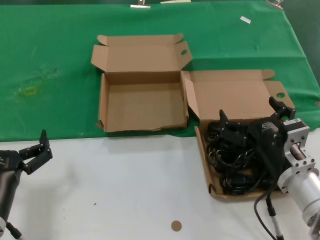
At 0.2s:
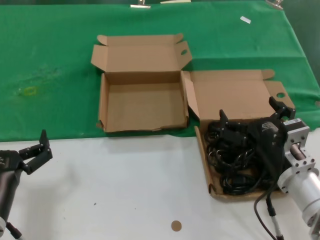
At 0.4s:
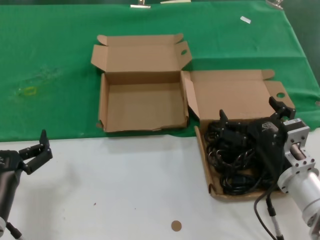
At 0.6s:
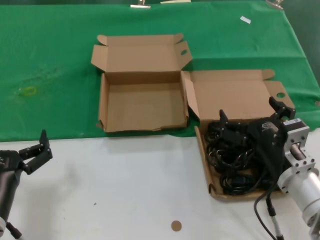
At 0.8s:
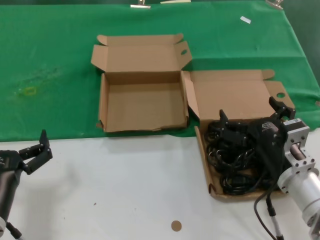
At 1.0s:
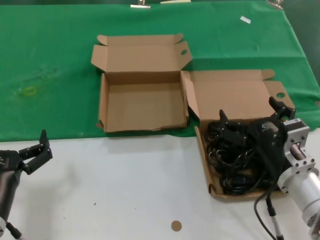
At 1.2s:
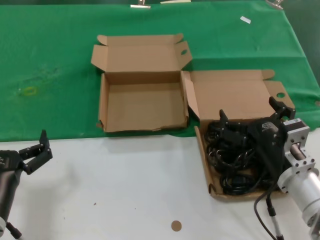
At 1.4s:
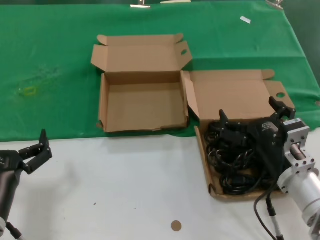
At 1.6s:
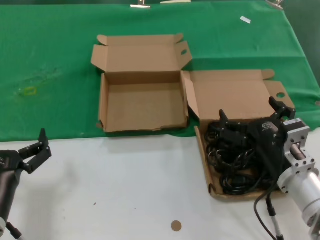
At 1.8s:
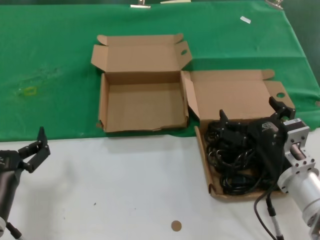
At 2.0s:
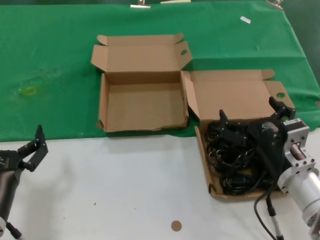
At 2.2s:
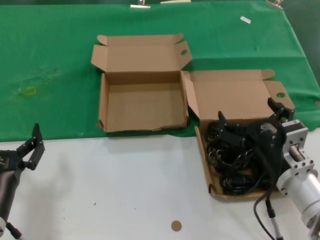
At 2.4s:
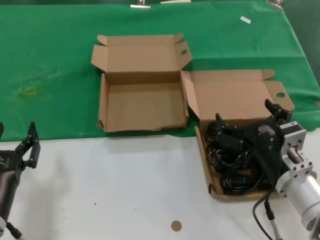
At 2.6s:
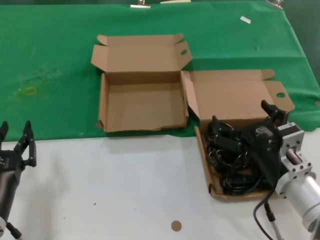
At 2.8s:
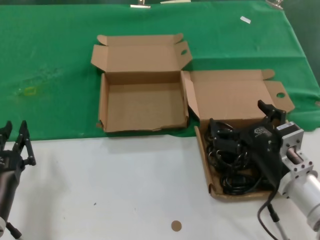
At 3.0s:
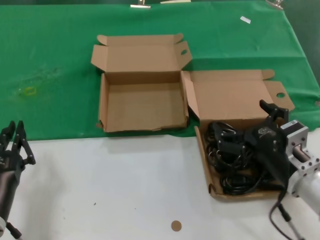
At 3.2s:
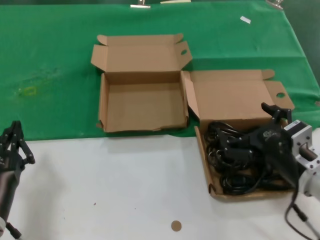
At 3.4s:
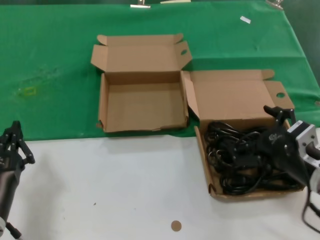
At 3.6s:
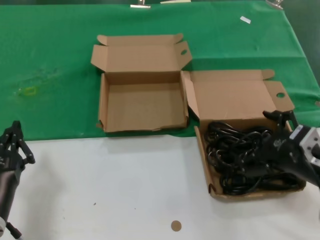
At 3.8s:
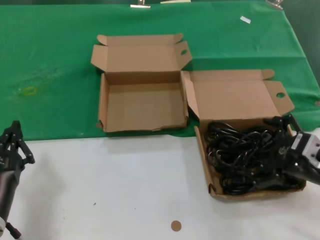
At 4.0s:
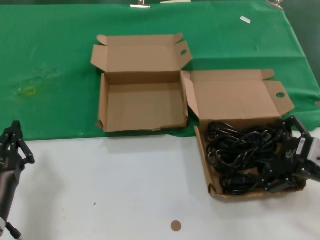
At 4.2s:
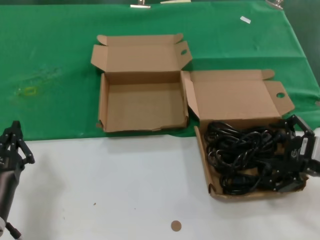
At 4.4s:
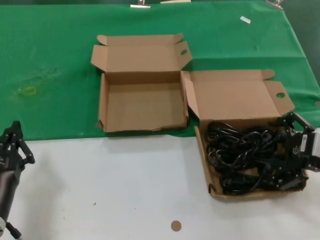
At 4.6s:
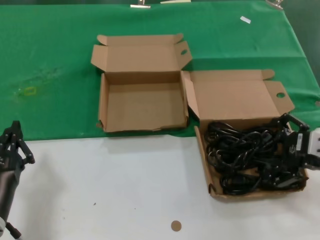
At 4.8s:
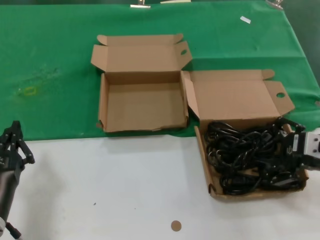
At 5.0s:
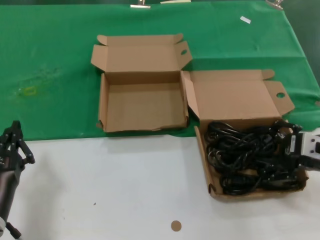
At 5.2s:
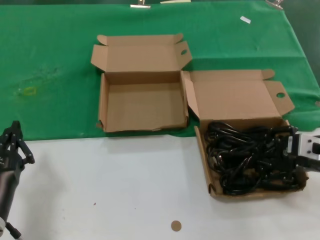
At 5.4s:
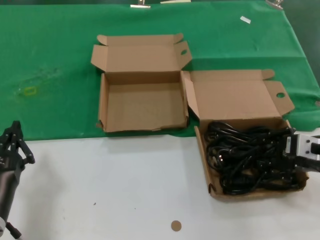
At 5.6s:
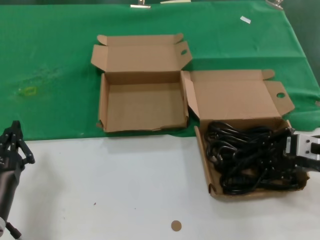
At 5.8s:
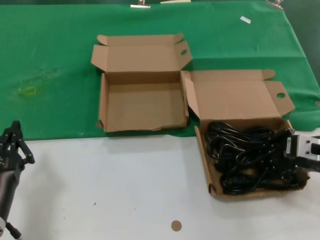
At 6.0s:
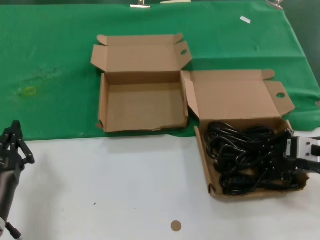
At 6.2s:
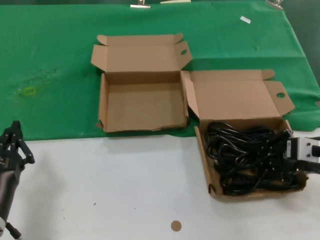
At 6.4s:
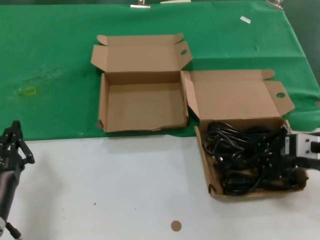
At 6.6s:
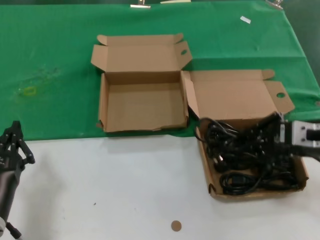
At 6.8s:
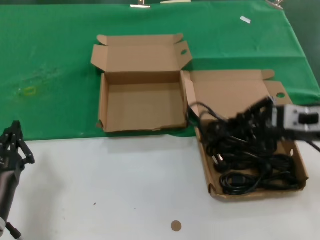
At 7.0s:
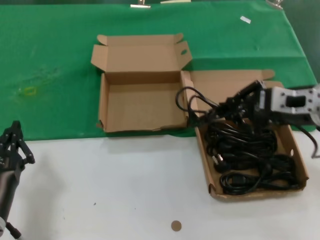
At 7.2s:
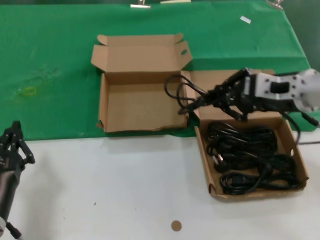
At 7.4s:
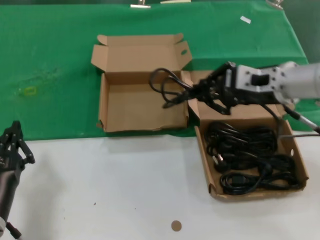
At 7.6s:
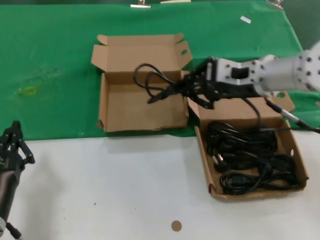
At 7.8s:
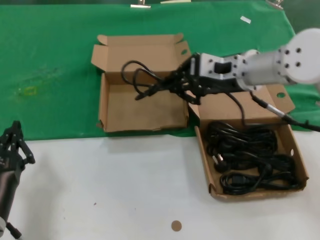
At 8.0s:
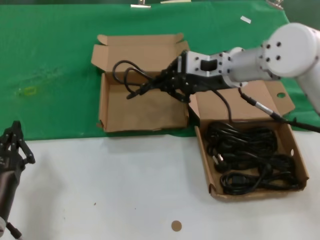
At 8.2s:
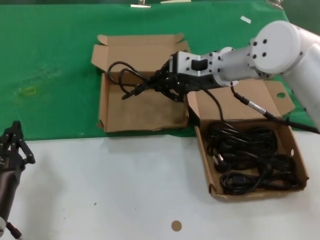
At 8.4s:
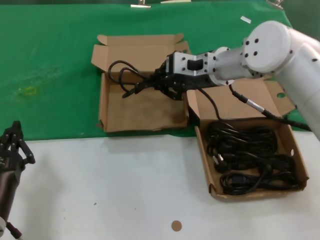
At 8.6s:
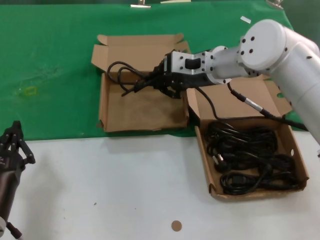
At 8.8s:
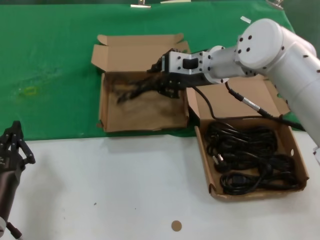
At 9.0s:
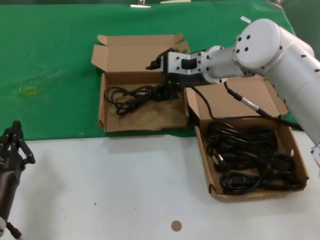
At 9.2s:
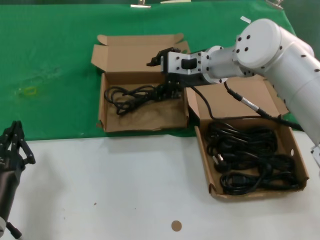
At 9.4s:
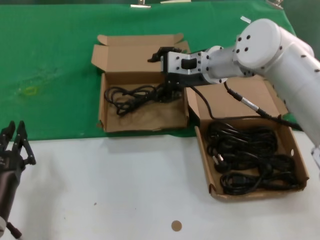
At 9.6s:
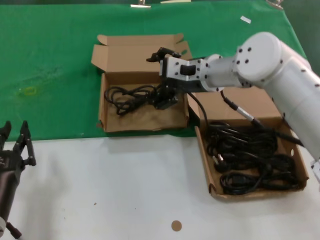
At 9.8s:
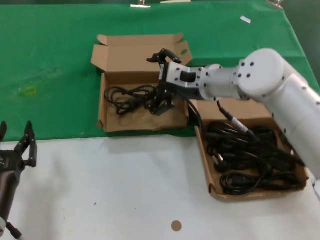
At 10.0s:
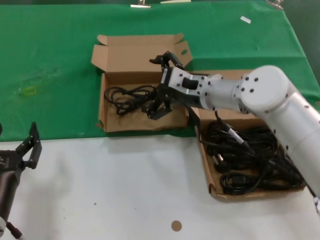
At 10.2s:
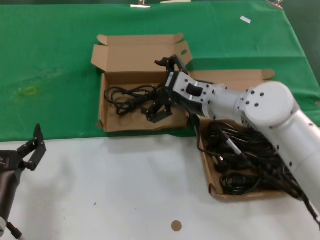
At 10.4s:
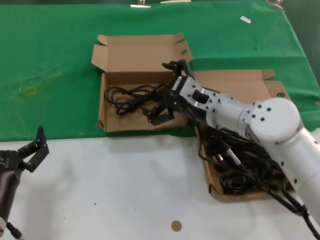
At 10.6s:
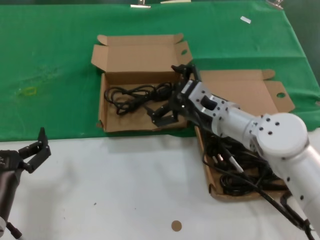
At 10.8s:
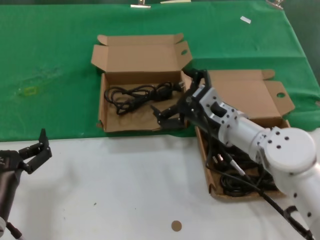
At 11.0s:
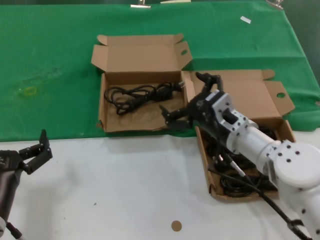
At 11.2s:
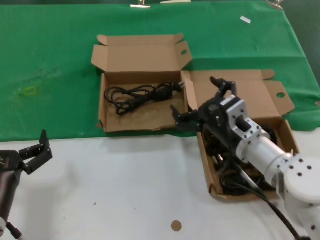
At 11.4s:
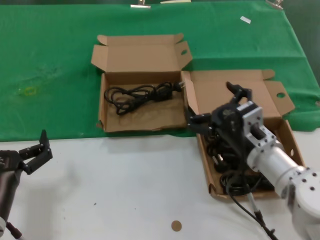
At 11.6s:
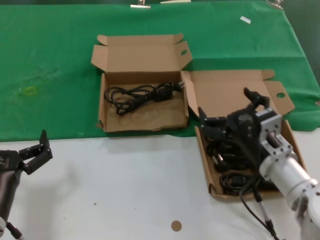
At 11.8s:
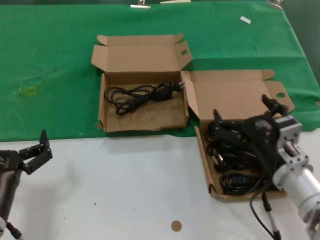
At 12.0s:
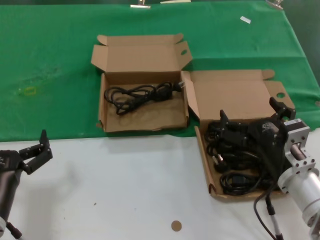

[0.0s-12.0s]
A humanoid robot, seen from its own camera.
Task of the whole recording: take the parts from the box containing them and put them into an empty box.
Step, 0.0s to 5.6s: Grasp the data cable.
Step, 5.8s to 8.8s: Place the data cable in the another box.
0.0s to 1.6s: Both hands stay about where they are.
1.6s to 3.0s: The hands make only small movements.
3.0s to 4.4s: The right hand moves to the right and upward, roughly 15 cm.
4.4s to 6.0s: The hands move only a little.
6.0s to 7.6s: The right hand heads to the left, forward and upward, covering some 20 cm.
7.6s to 9.0s: The right hand goes roughly 10 cm forward and to the left.
9.0s to 10.4s: The right hand moves downward and backward, some 10 cm.
10.4s to 12.0s: The right hand moves backward, to the right and downward, about 20 cm.

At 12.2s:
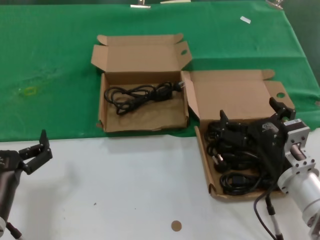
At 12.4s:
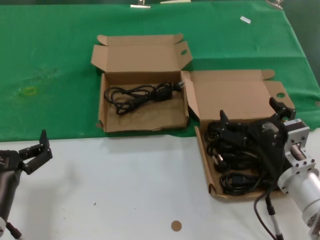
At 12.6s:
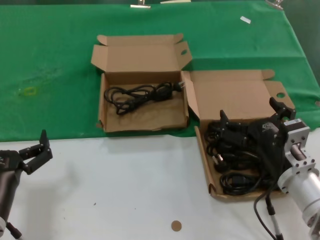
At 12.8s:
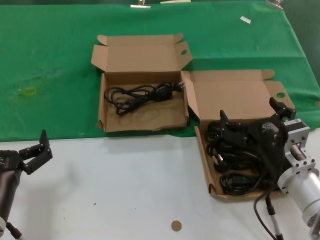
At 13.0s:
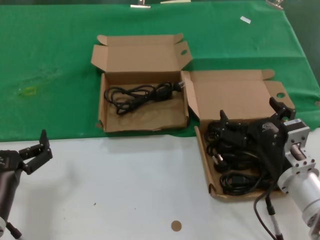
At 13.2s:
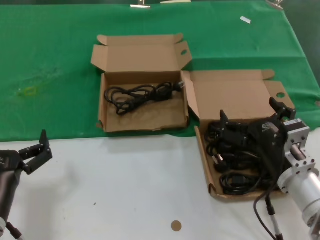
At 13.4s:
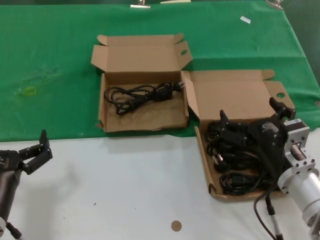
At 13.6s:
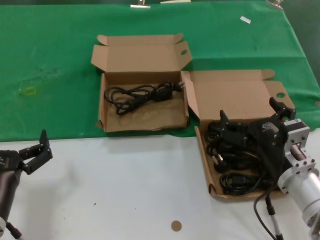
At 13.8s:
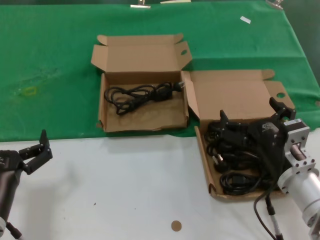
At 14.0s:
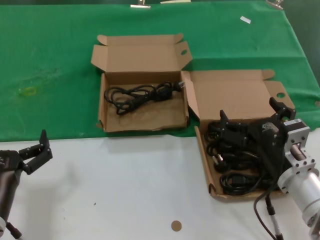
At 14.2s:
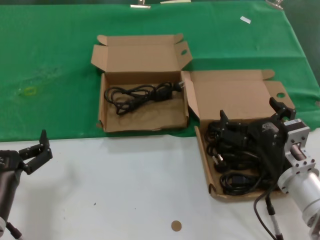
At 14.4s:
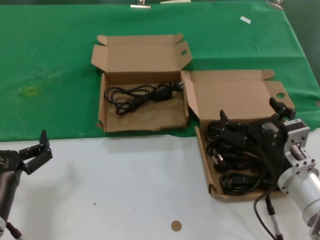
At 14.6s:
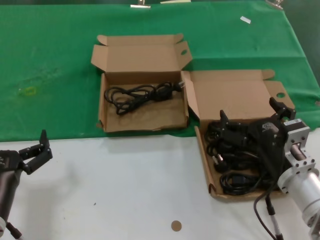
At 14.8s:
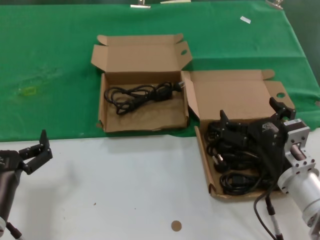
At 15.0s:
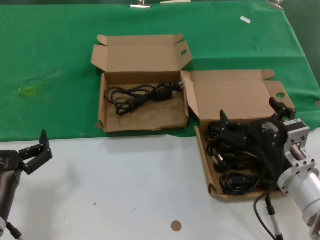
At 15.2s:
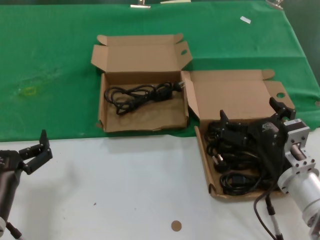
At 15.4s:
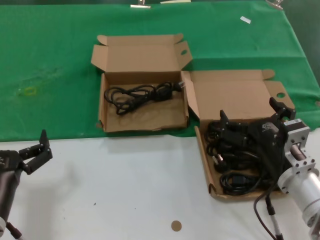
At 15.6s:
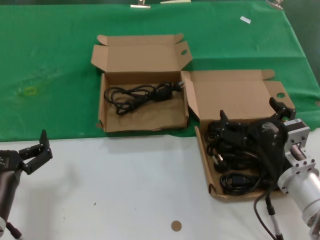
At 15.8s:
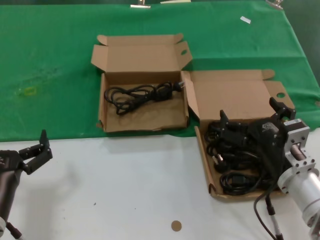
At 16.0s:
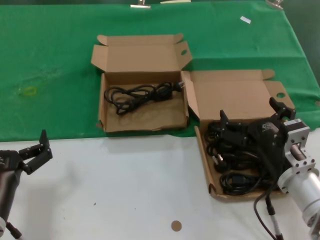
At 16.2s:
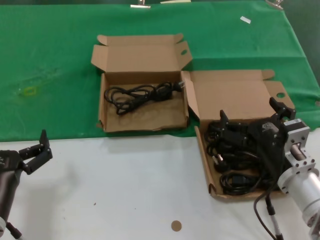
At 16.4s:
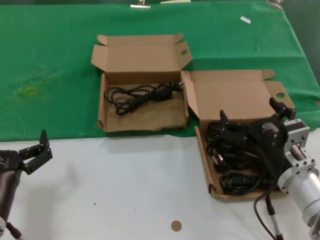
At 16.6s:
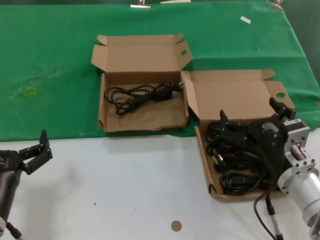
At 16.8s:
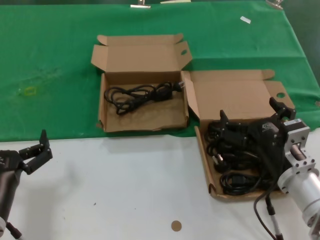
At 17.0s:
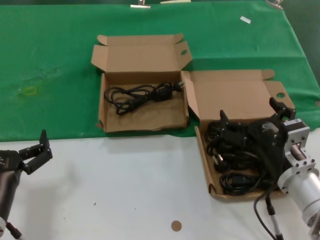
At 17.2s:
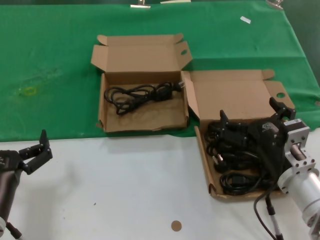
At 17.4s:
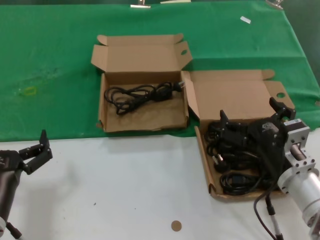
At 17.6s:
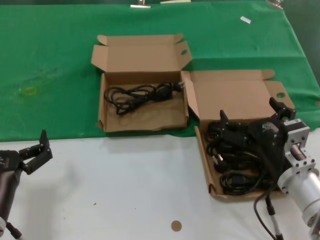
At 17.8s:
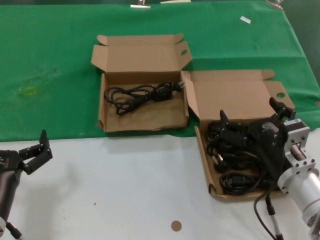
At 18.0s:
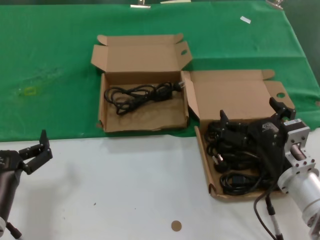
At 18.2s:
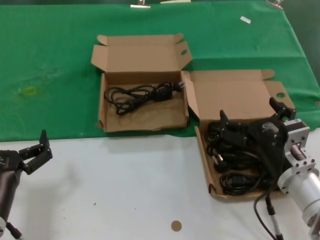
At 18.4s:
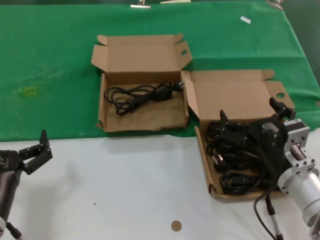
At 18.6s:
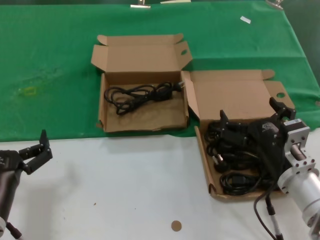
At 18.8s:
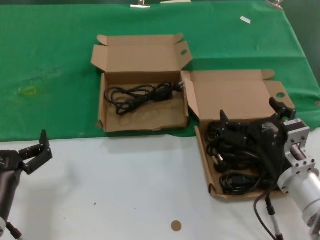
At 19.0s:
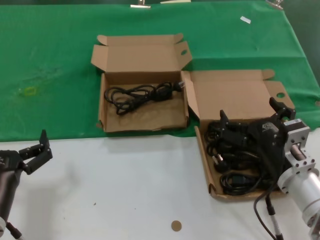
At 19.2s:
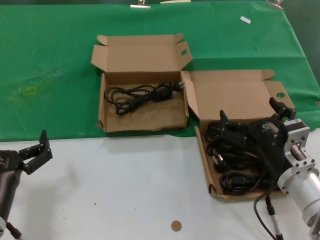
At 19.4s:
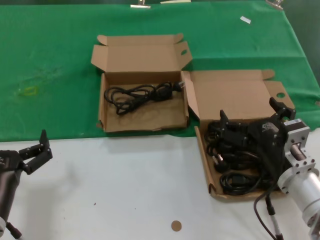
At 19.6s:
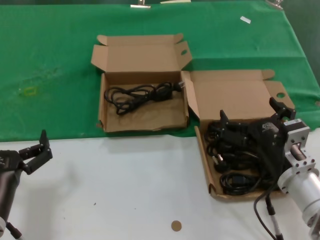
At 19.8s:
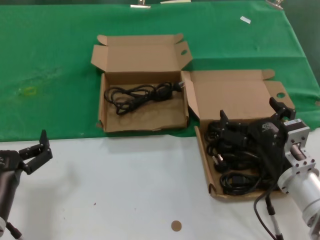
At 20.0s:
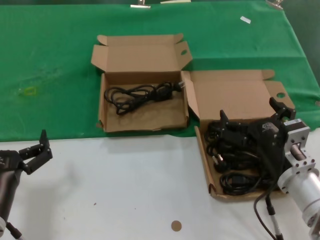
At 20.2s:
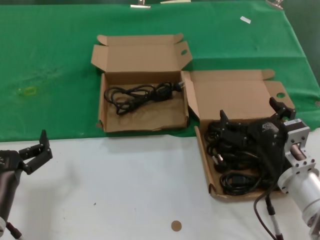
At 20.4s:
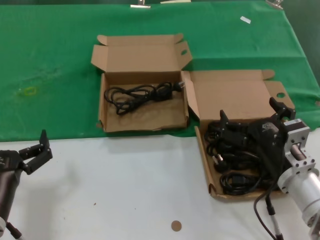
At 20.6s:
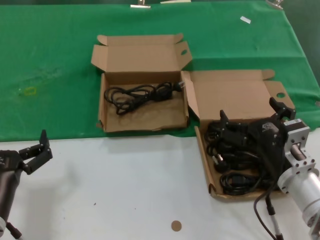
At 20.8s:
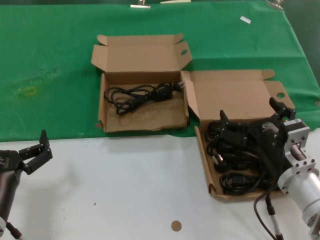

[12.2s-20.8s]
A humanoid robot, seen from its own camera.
Task of the whole recording: take the parts from the box containing them and put them into an empty box.
12.2s to 20.8s: Both hands stay put.

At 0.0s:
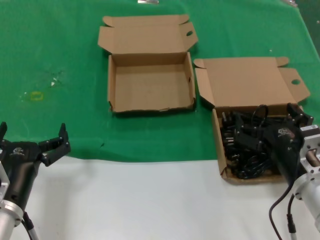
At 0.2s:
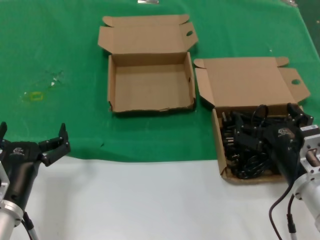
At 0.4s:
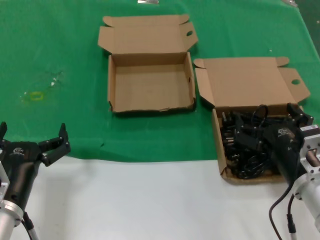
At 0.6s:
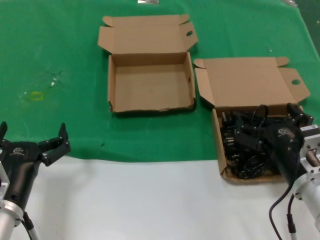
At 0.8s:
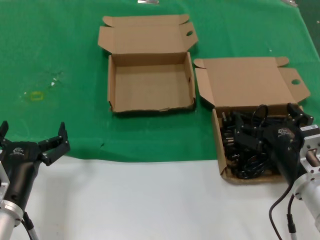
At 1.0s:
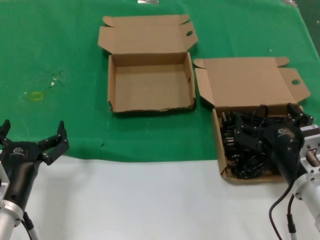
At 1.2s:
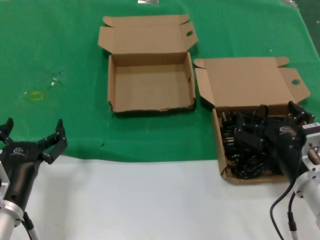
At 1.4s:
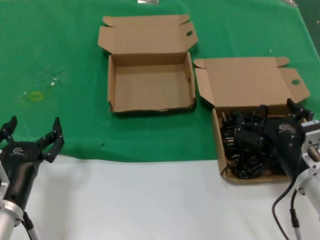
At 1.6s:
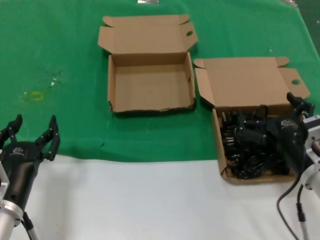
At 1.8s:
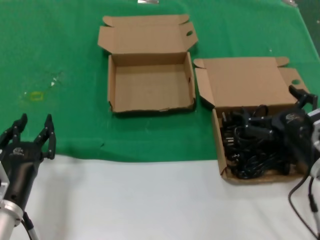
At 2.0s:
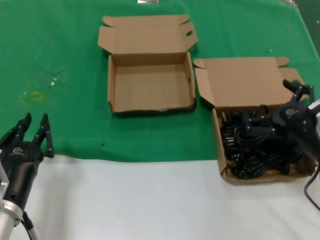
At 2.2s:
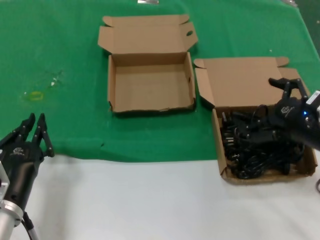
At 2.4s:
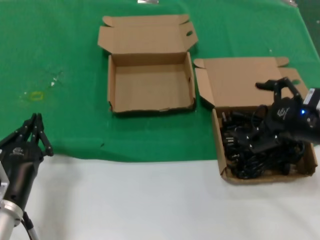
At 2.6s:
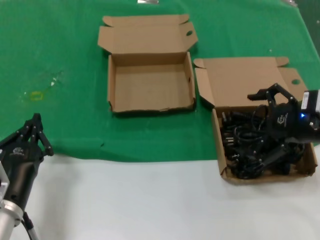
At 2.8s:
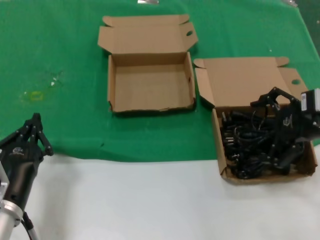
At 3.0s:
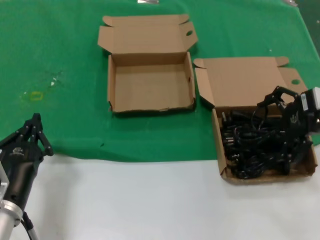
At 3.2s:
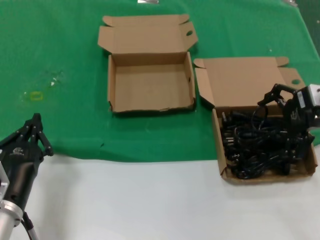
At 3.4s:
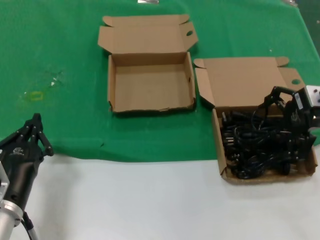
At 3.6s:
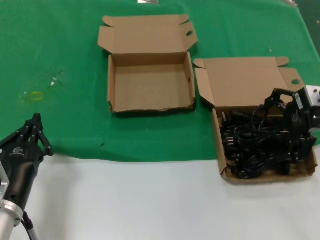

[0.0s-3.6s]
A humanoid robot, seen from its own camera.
Task of the whole recording: take the parts from the box containing them and put them into an empty box.
0.0s to 1.8s: The right hand moves some 5 cm.
1.8s to 3.6s: The right hand shifts approximately 20 cm upward, forward and to the right.
